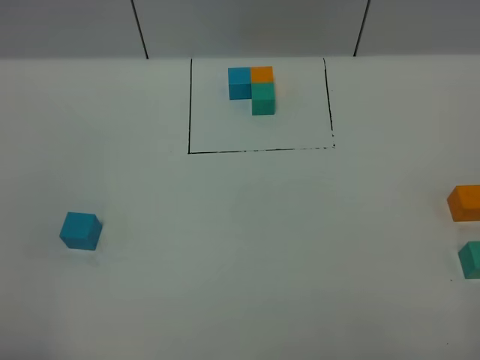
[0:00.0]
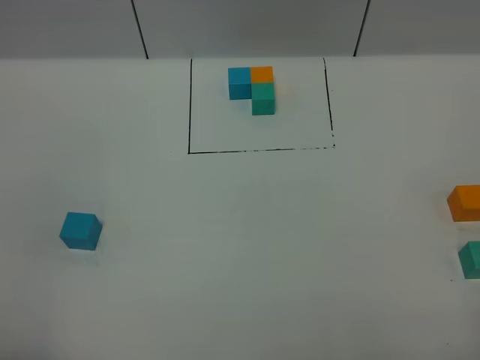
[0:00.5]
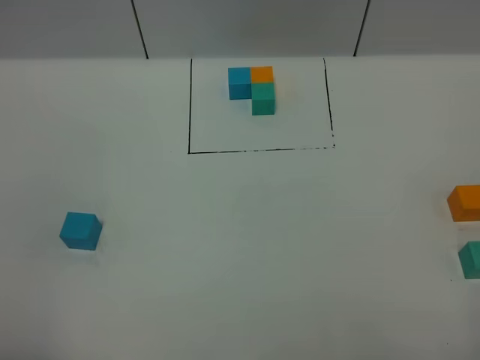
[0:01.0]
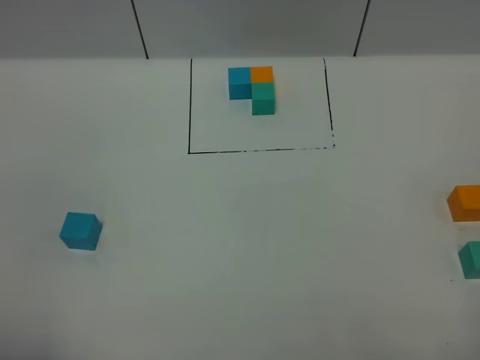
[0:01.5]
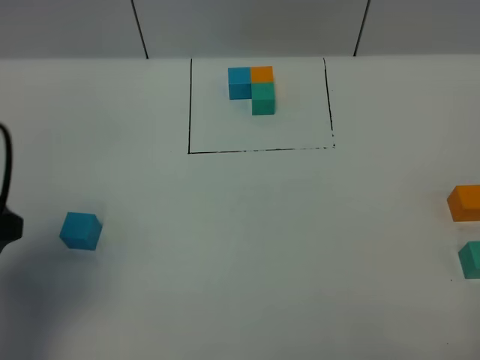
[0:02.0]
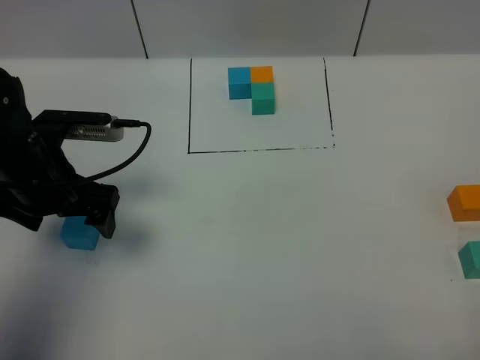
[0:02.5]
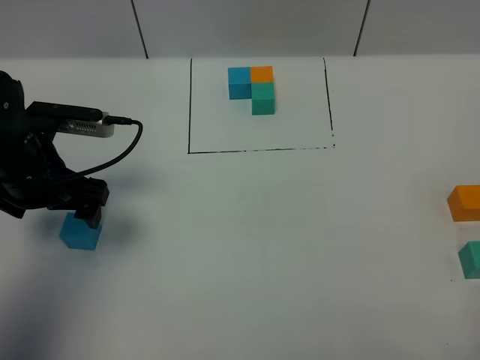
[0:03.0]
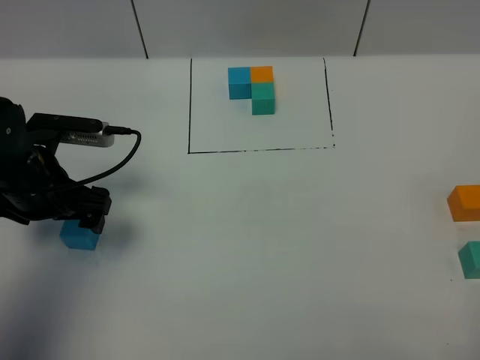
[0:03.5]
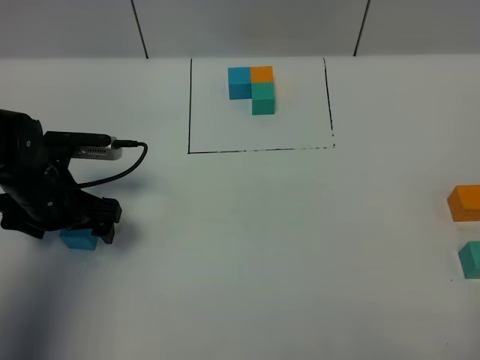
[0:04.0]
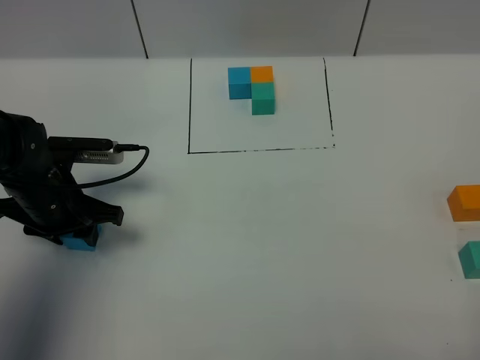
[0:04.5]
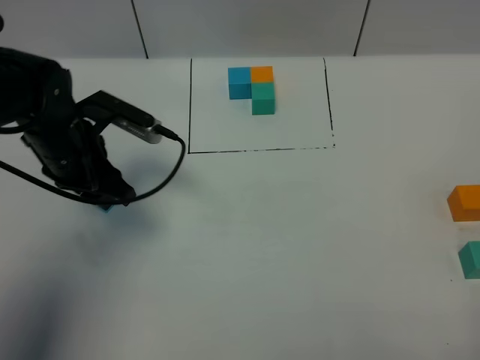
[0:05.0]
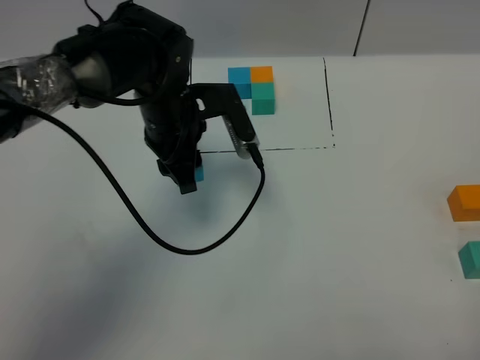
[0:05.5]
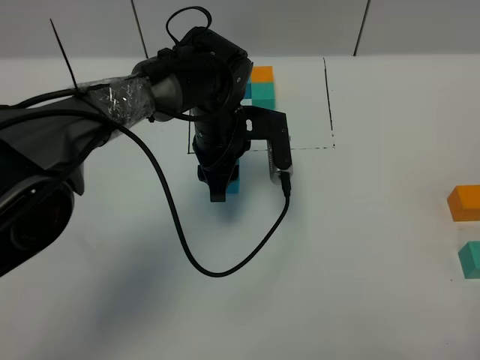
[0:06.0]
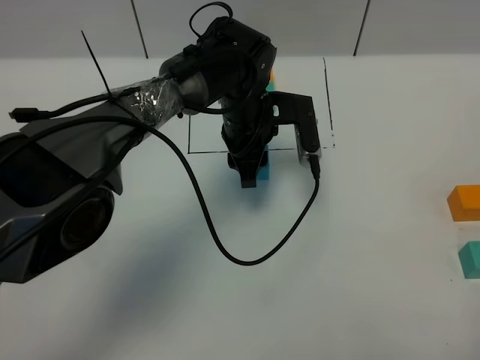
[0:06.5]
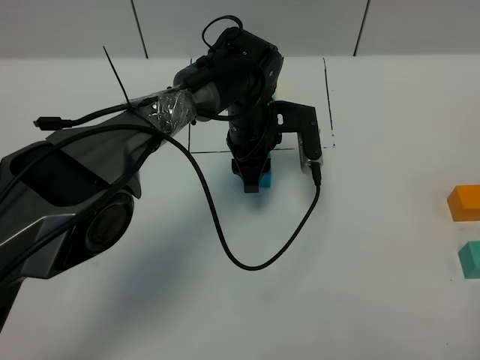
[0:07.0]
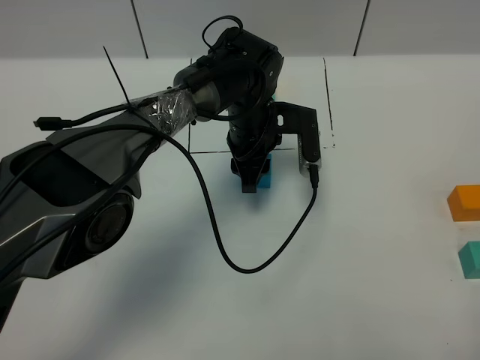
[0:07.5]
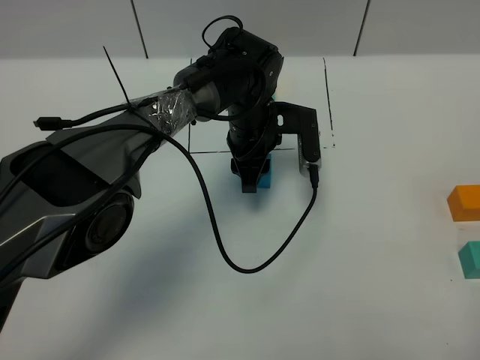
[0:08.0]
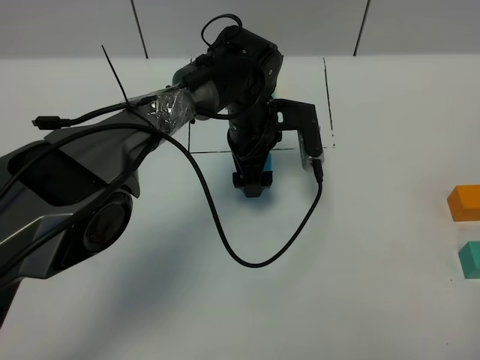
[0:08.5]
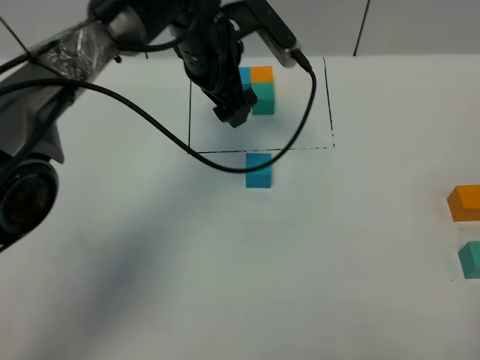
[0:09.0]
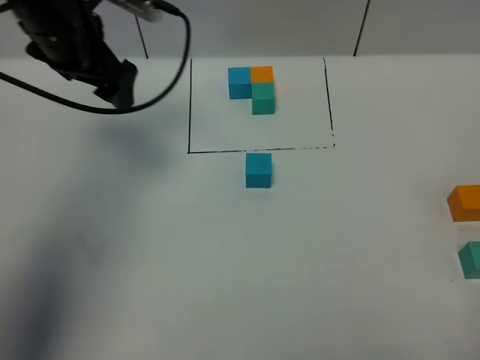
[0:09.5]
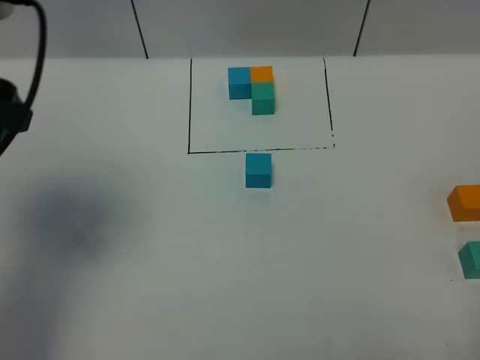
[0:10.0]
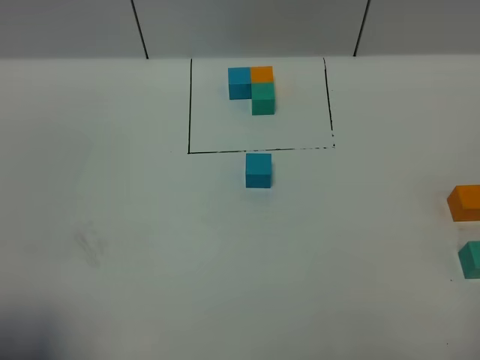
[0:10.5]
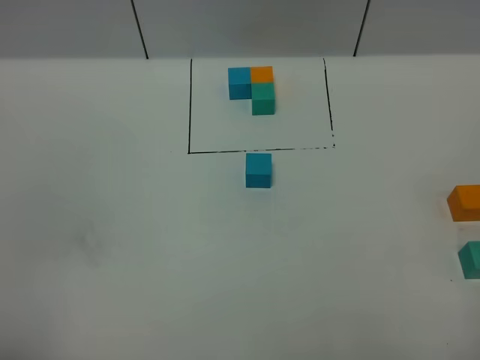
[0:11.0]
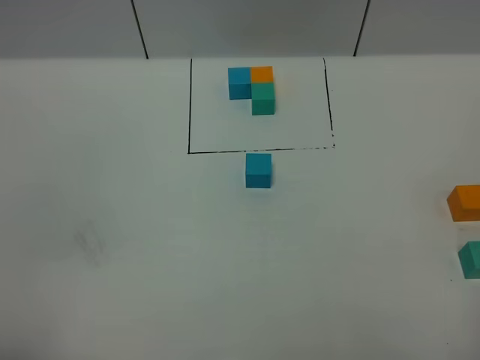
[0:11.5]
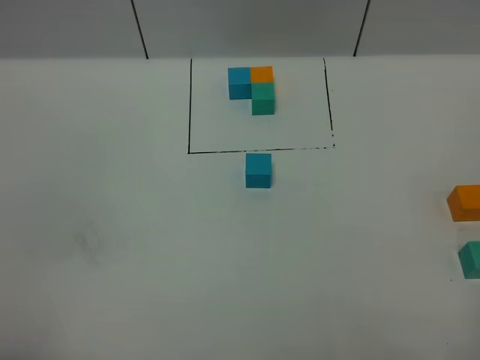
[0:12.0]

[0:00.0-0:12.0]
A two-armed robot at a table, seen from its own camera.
Task of the whole recording: According to the building block template in front, assemble the scattered blocks together.
Step, 0:00.0 to 0:08.0: Put the blue build block in the center of the table.
0:00.0 to 0:02.0: The left gripper is displaced forward by some 20 cm, and opens up.
0:02.0 to 0:04.0: The left gripper is displaced downward and forward by approximately 20 cm.
0:04.0 to 0:06.0: The left gripper travels to the right and forward by some 25 cm, and closes up.
0:06.0 to 0:08.0: The left gripper ends up about 5 cm from where it was.
0:08.0 to 0:10.0: The left gripper is displaced to the left, upward and backward by approximately 40 cm, and opens.
0:10.0 to 0:12.0: The left gripper goes some 25 cm backward, and closes its fingers.

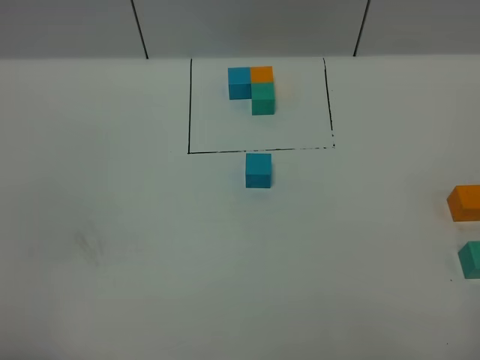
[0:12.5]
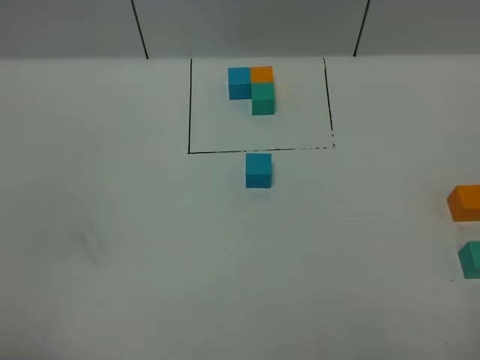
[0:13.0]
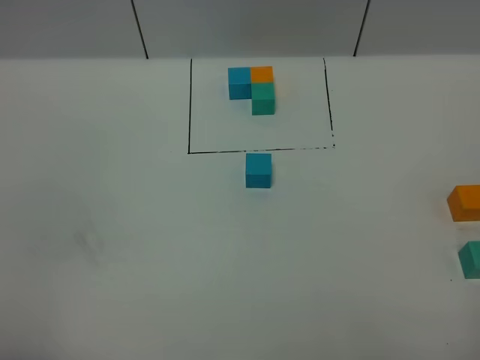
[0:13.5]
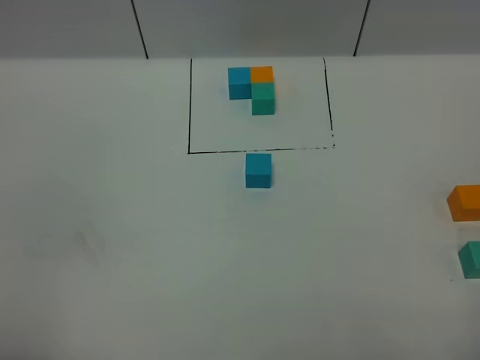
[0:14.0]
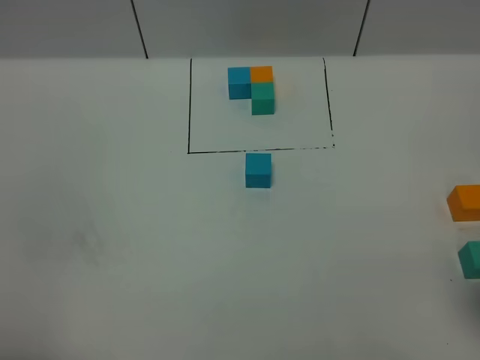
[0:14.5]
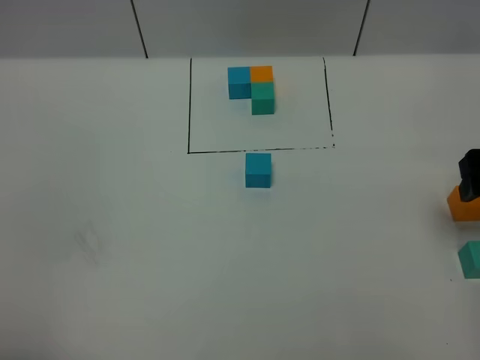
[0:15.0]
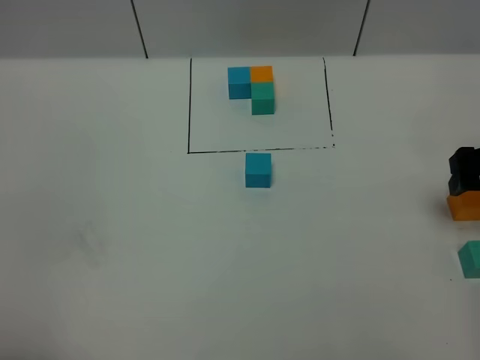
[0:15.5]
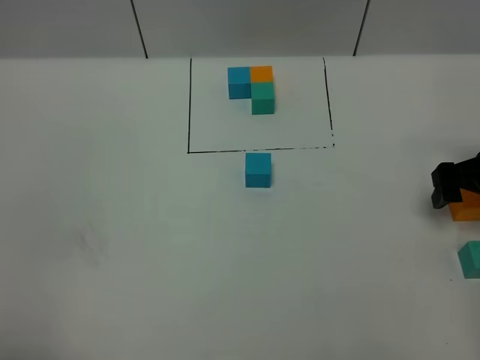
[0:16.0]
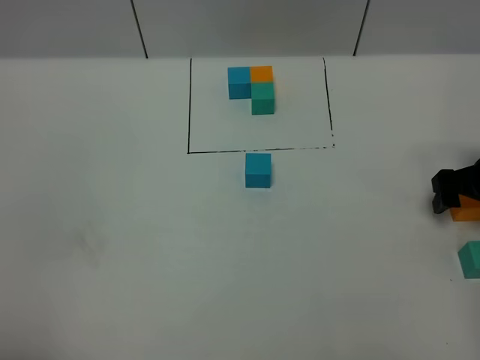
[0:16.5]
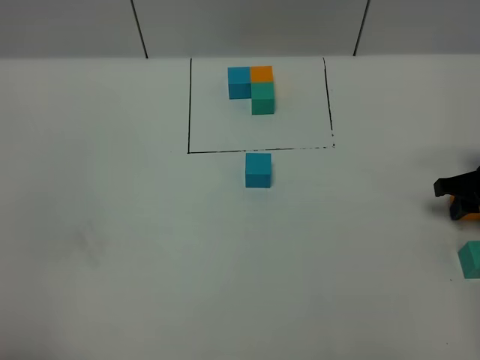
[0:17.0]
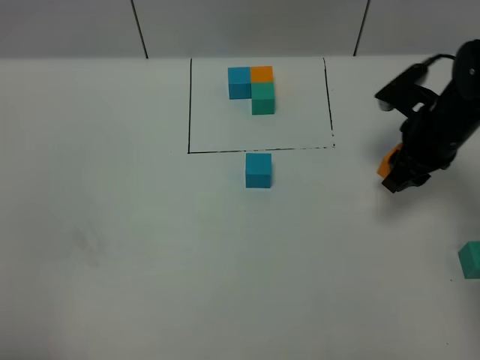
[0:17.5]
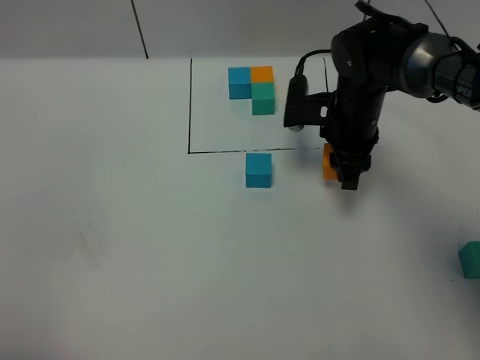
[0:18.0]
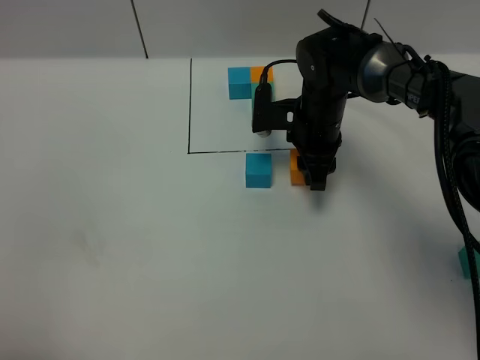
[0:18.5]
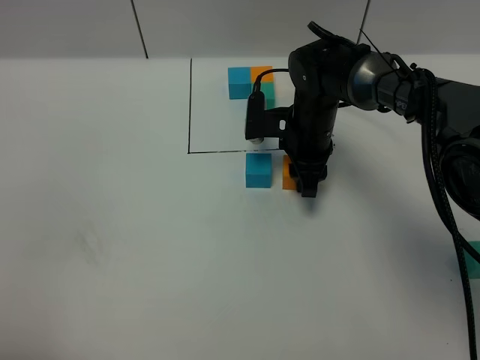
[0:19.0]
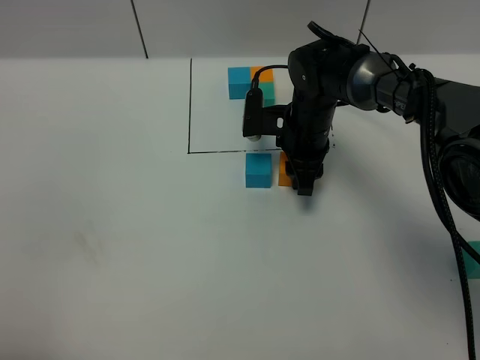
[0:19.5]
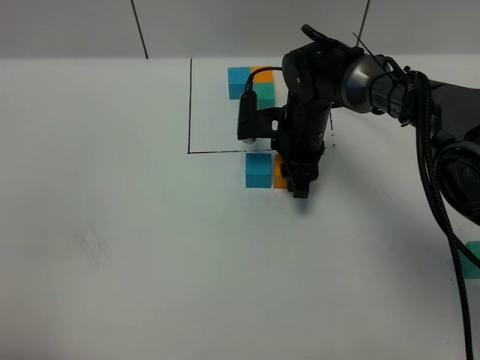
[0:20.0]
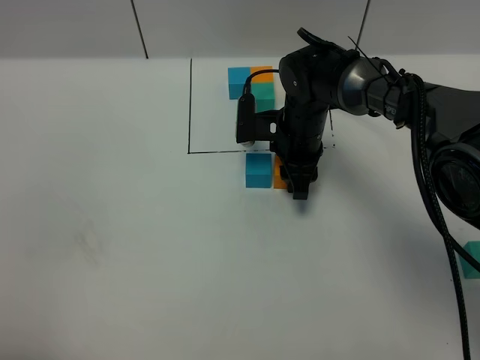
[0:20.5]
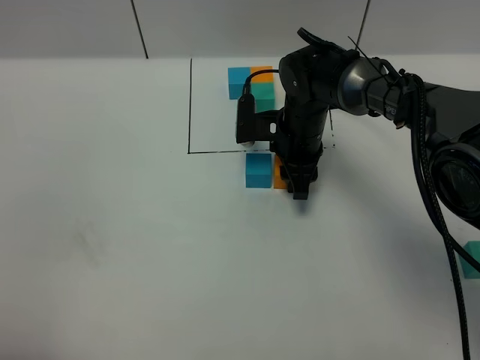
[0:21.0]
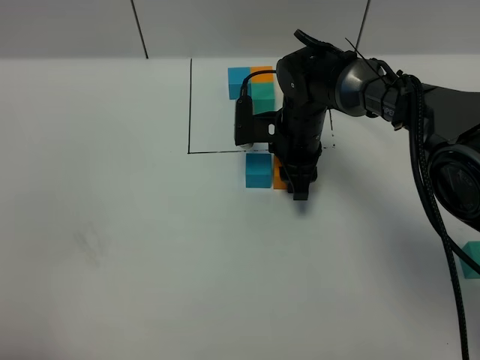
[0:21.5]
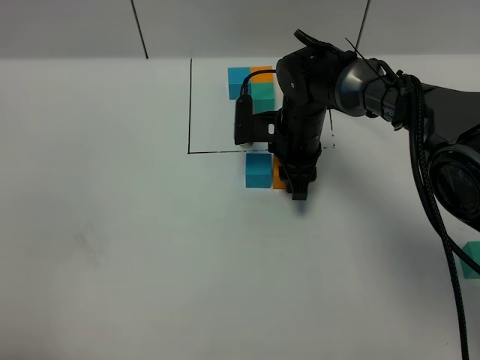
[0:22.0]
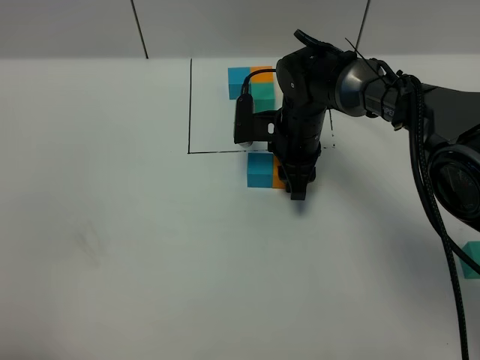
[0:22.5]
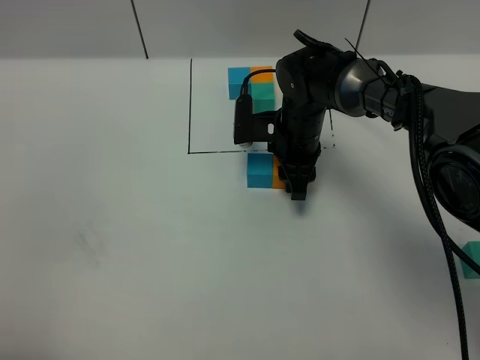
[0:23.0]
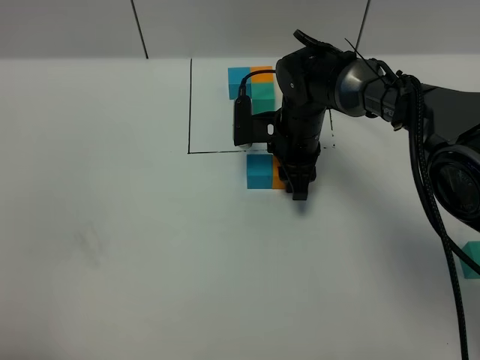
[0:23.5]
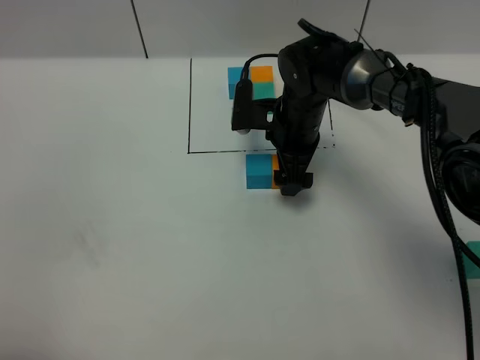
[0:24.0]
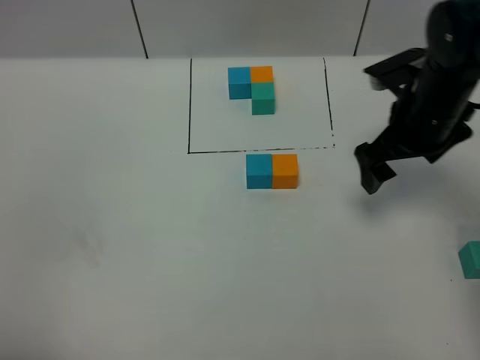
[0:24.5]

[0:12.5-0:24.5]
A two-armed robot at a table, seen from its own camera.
Task of the whole recording: According to the building block template in front, assemble the scattered blocks together.
Step, 0:12.5 to 0:23.5: Put the orange build block on the right of the blue build block.
0:14.5 to 0:16.5: The right gripper moves forward and downward, some 25 cm.
0:16.5 to 0:18.5: The right gripper heads to the left and forward, covering approximately 25 cm, and closes its fingers.
0:18.5 to 0:20.5: The grippers move only a little.
0:20.5 to 0:22.5: Both grippers stay put.
0:22.5 to 0:24.5: The right gripper moves to the right, upward and backward, some 20 cm, and opens up.

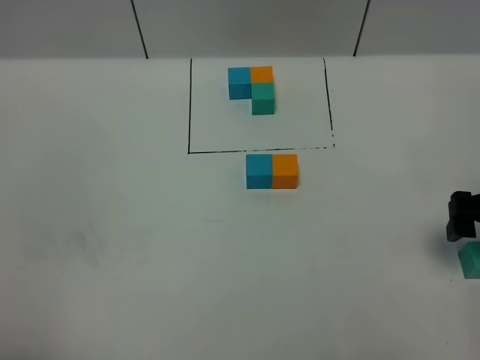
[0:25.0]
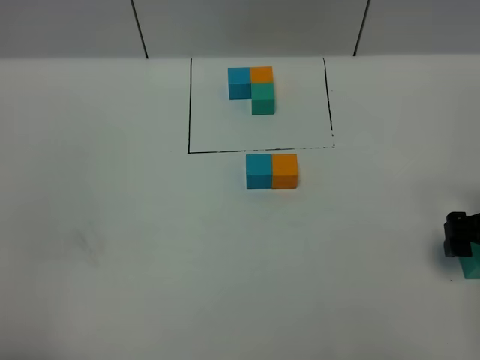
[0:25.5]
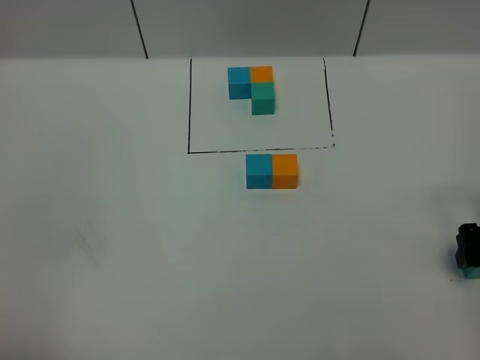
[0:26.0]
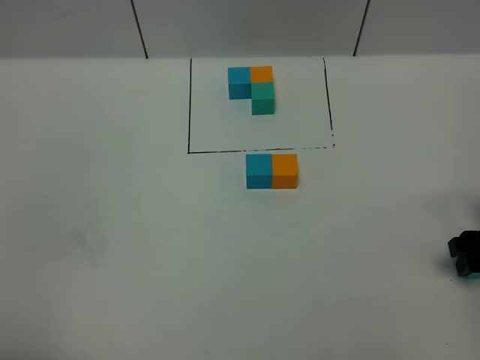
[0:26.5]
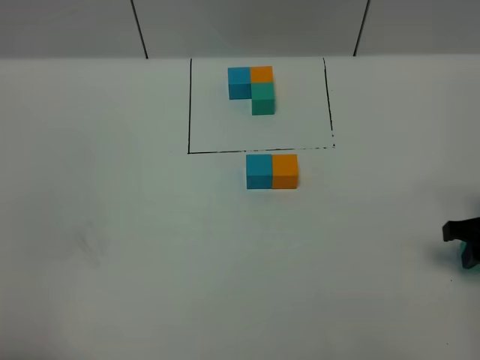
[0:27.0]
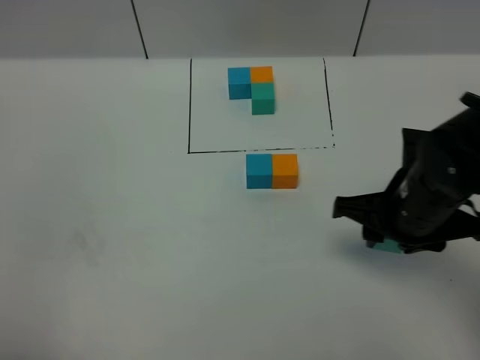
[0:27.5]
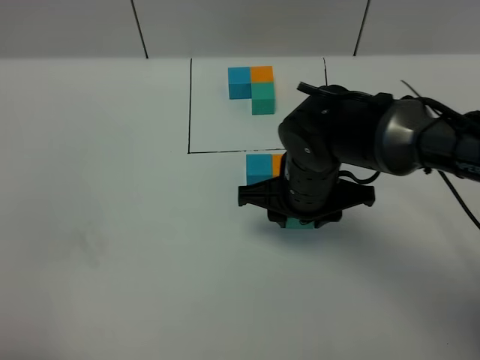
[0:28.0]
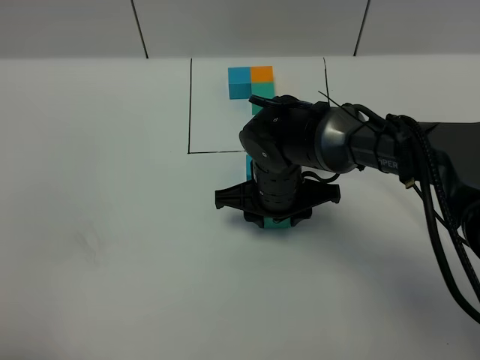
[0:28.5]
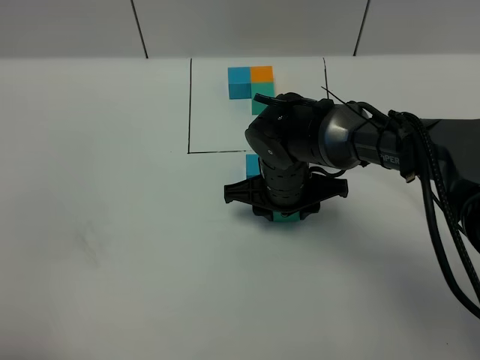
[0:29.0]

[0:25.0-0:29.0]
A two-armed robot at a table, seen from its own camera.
Task of the whole recording: According to the building block template in front, assemble the scattered blocks together.
0:25.0 to 0:27.0: The right gripper closes its fingers.
0:27.0 to 0:29.0: The right gripper moves to the left, roughly 25 cm.
